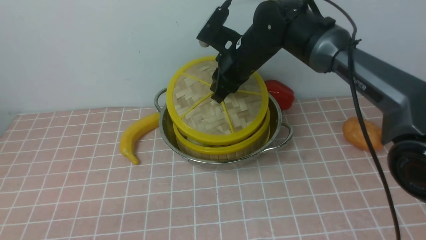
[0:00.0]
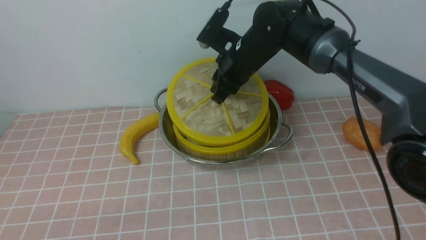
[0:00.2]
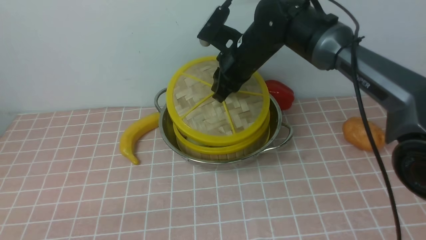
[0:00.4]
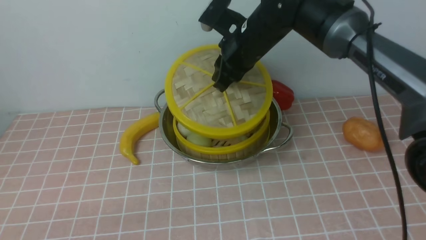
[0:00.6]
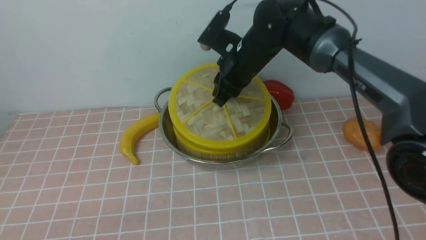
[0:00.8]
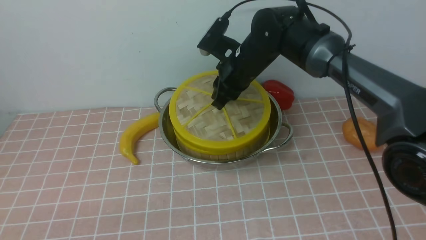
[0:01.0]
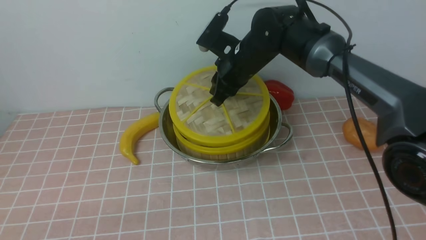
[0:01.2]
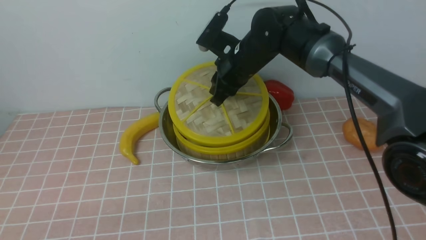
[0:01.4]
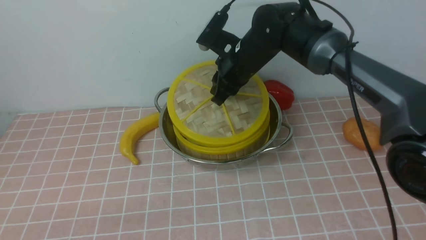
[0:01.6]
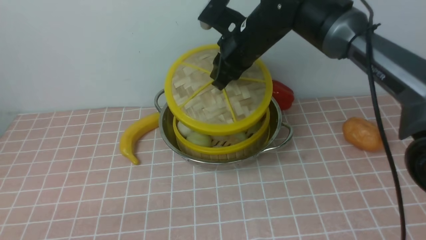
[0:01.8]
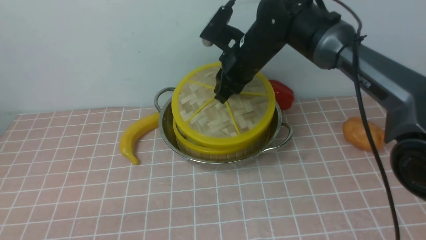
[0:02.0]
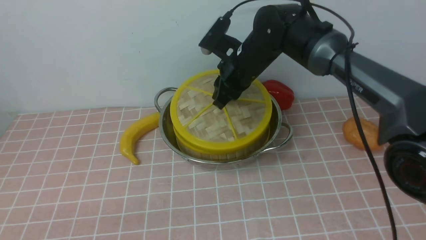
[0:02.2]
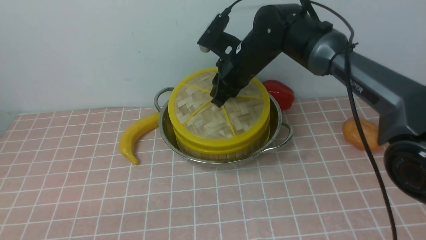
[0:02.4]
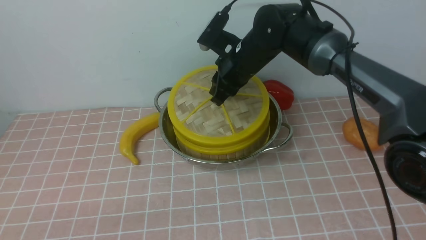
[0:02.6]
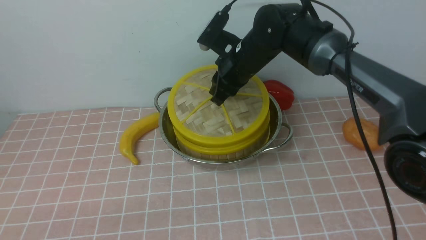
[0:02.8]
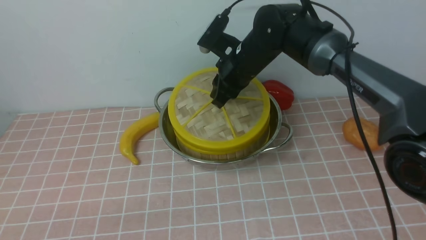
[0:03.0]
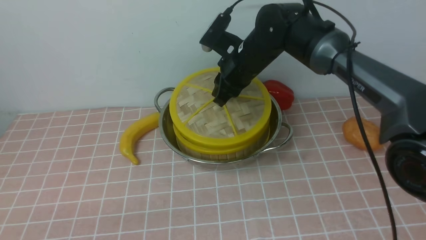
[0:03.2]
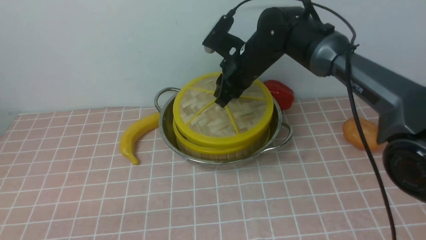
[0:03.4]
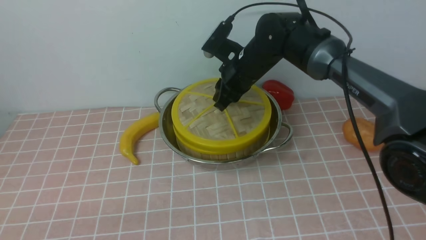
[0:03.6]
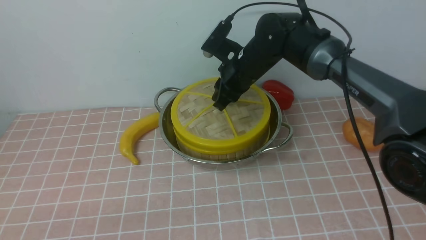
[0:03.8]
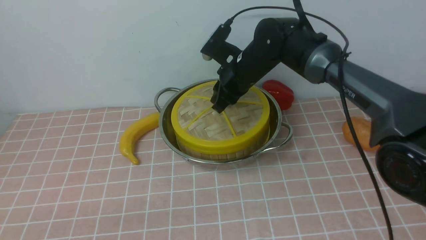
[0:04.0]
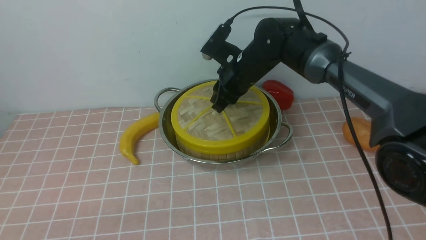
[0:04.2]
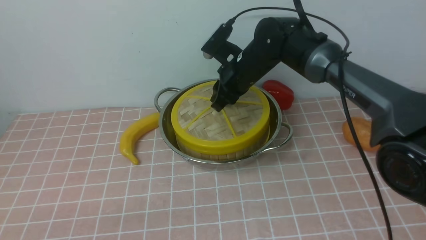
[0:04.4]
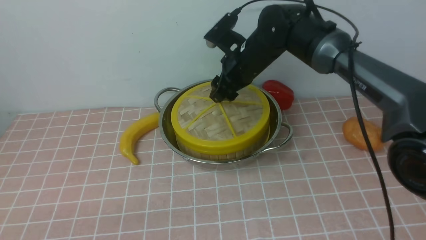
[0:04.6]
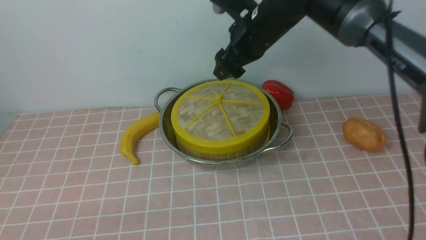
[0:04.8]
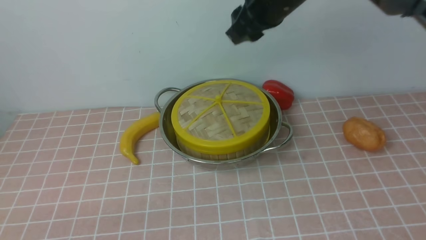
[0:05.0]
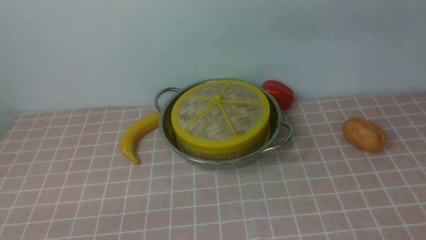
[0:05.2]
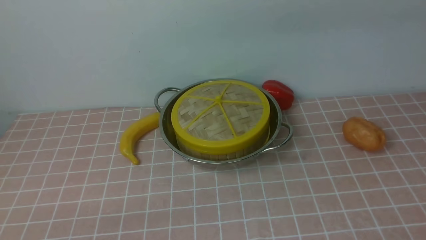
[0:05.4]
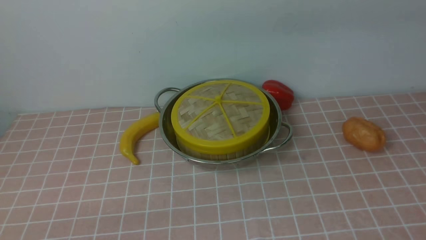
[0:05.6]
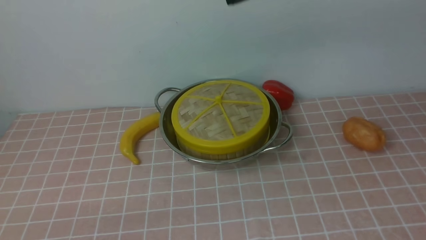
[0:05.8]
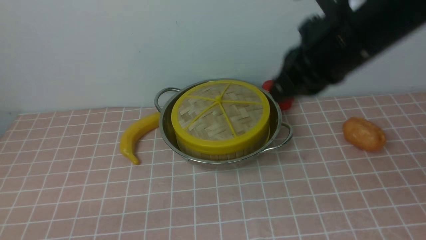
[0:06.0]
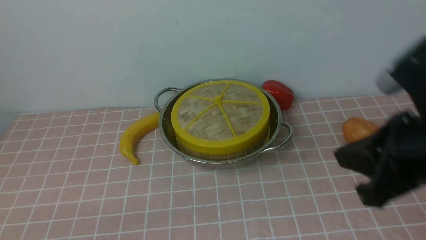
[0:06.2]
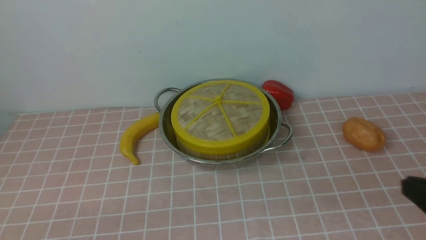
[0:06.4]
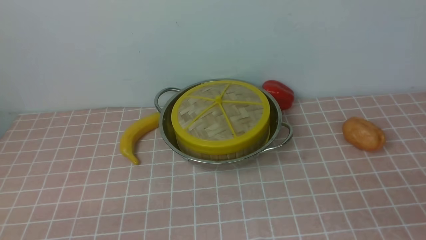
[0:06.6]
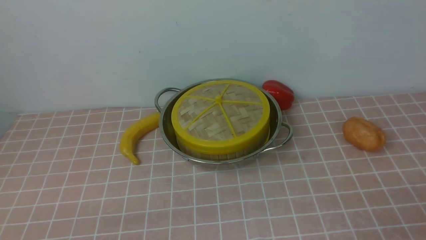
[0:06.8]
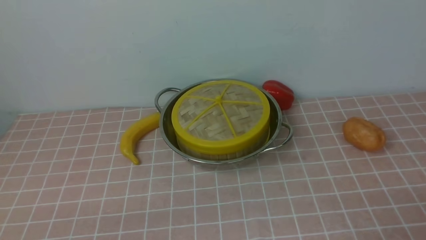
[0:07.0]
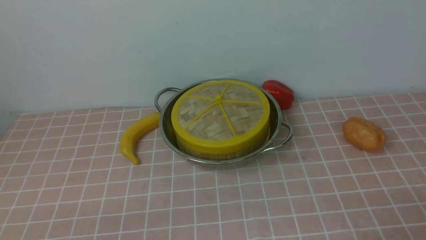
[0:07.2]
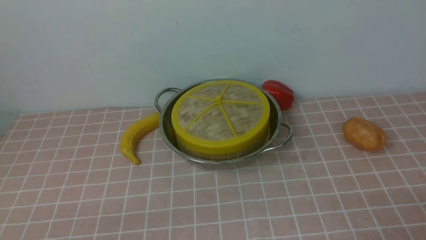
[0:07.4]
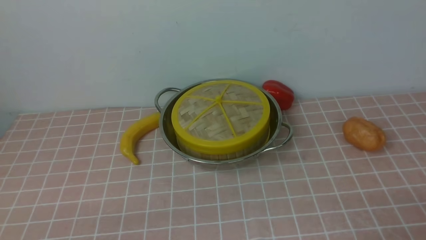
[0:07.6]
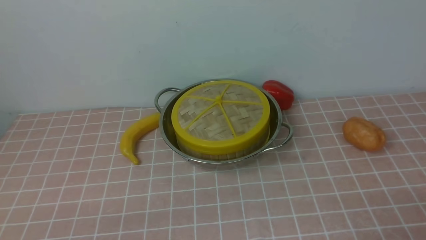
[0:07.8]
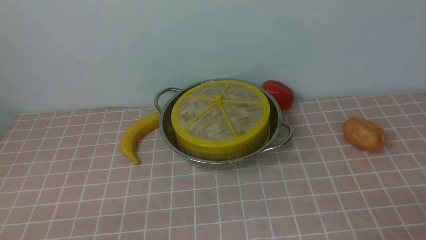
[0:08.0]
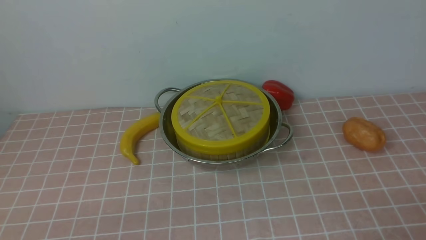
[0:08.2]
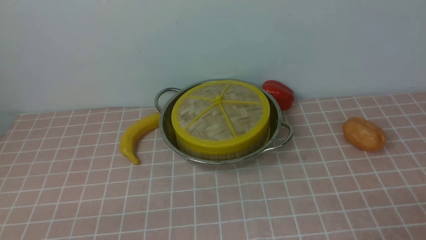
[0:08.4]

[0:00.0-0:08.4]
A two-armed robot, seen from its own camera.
Task of the whole recording: place the steamer in the pot on the pink tablecloth, and put the lid on the steamer.
Step, 0.0 to 4.6 s: use the right arm to place the steamer lid on the steamer.
0.0 to 4.2 s: The grippers make only small movements.
4.2 to 5.6 s: The right gripper is displaced upward and backward by some 25 cm, and closes up.

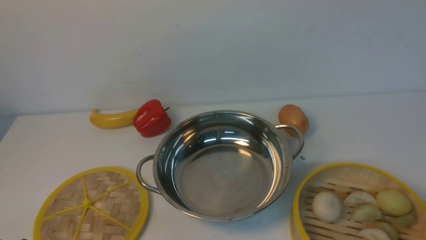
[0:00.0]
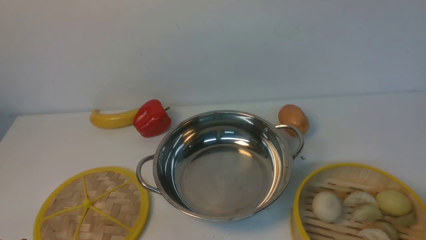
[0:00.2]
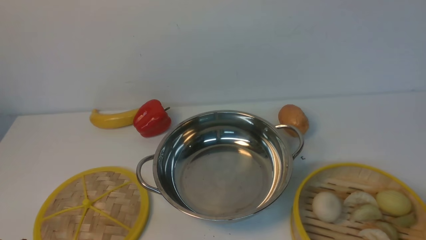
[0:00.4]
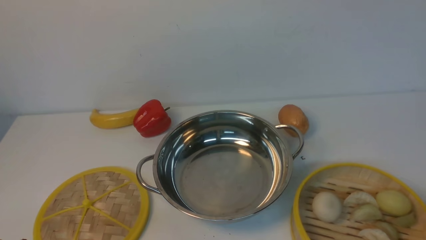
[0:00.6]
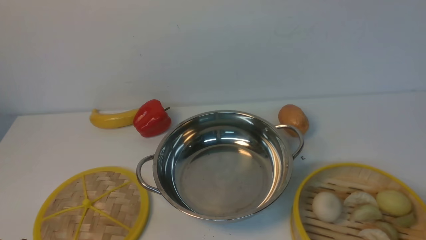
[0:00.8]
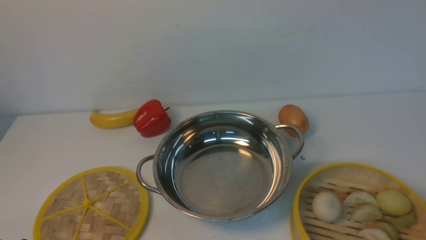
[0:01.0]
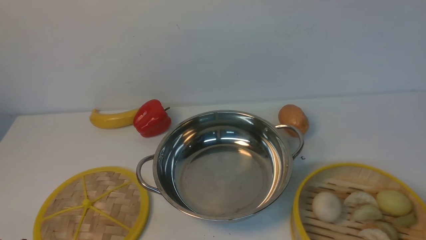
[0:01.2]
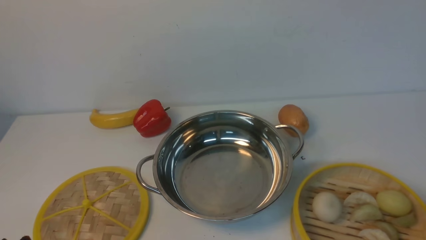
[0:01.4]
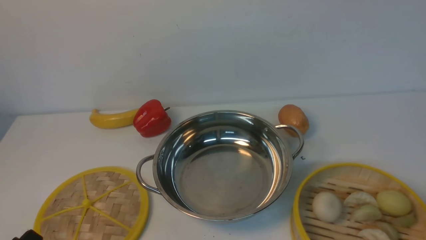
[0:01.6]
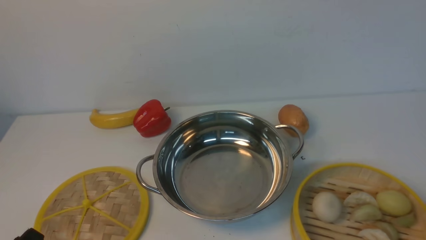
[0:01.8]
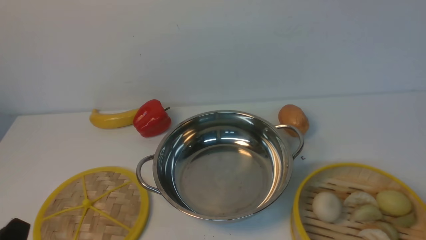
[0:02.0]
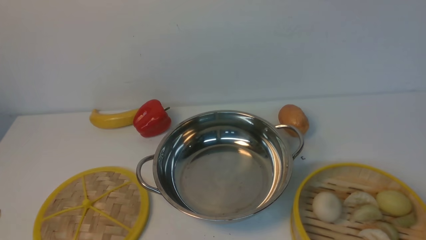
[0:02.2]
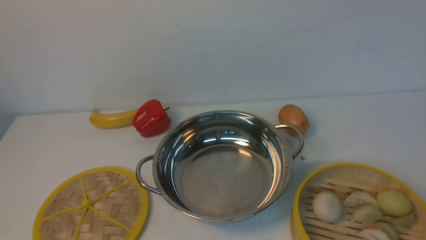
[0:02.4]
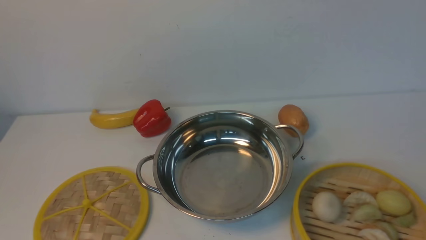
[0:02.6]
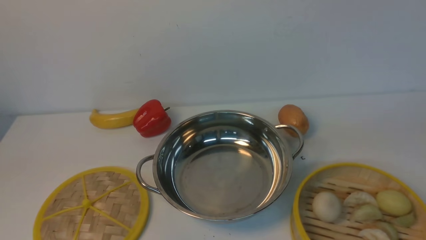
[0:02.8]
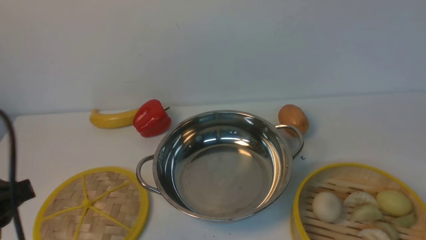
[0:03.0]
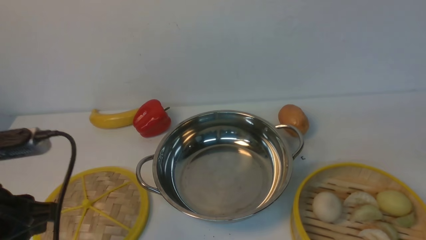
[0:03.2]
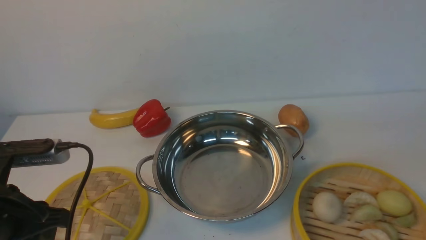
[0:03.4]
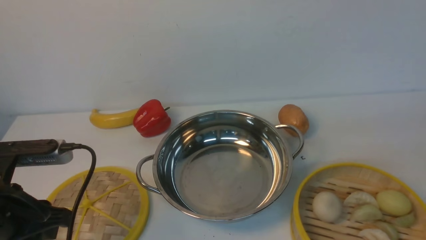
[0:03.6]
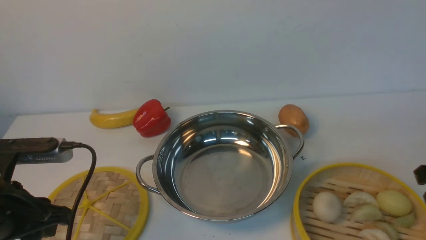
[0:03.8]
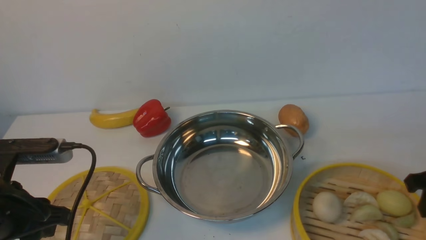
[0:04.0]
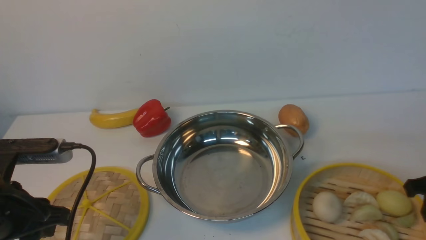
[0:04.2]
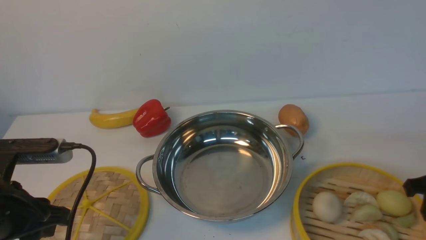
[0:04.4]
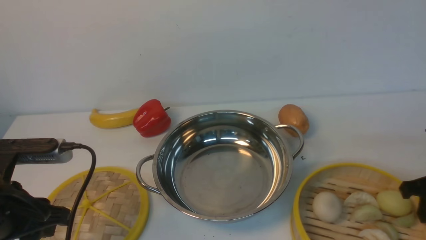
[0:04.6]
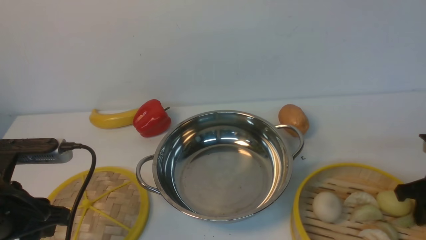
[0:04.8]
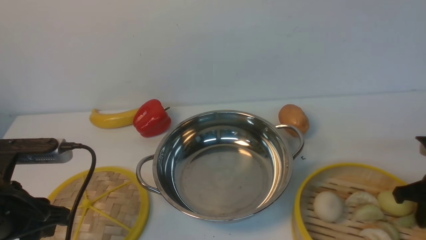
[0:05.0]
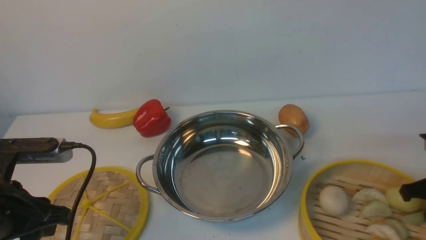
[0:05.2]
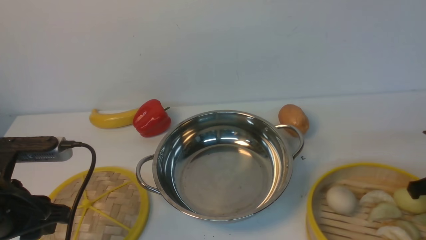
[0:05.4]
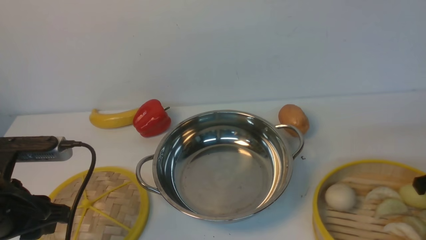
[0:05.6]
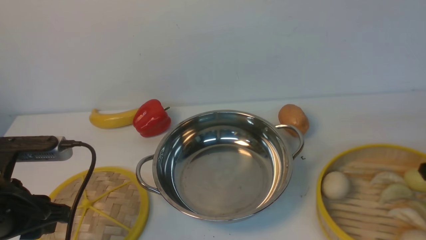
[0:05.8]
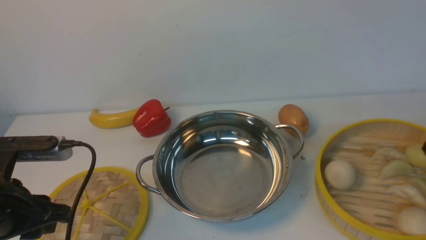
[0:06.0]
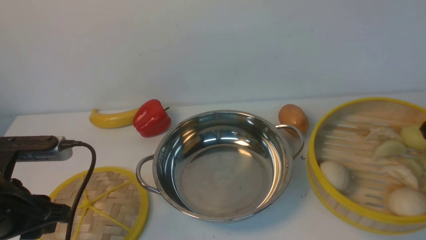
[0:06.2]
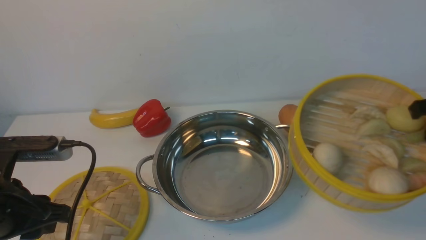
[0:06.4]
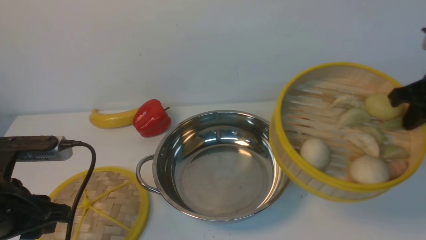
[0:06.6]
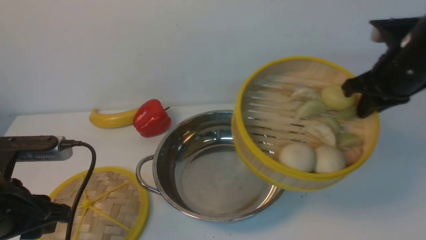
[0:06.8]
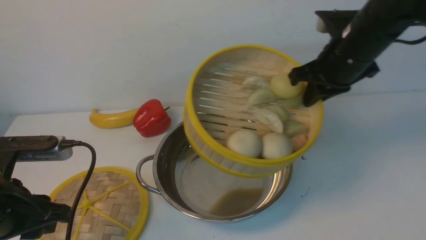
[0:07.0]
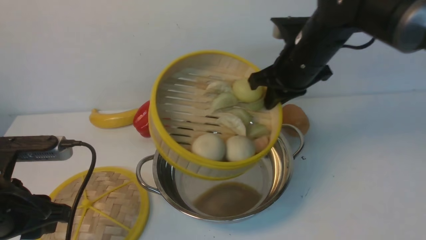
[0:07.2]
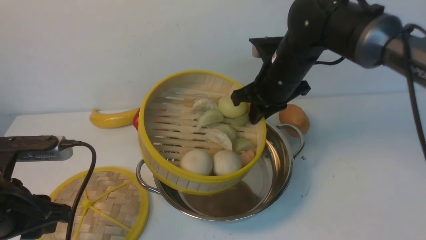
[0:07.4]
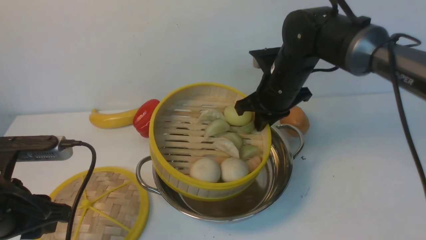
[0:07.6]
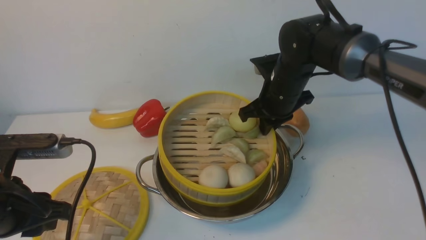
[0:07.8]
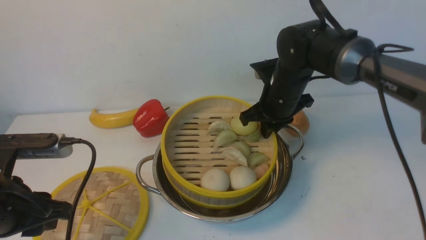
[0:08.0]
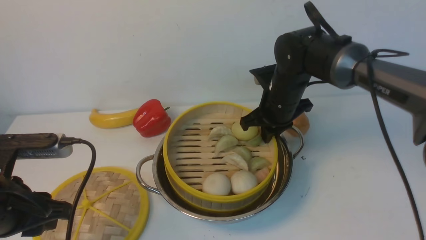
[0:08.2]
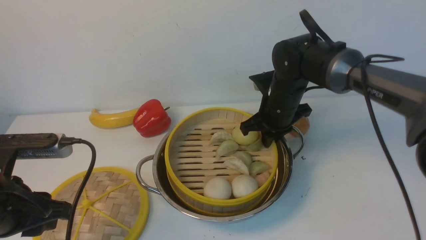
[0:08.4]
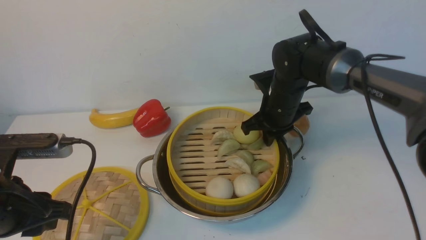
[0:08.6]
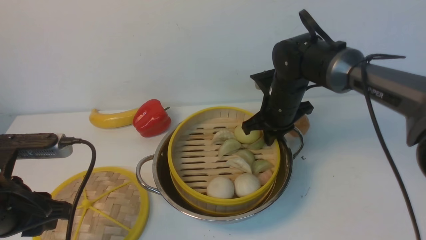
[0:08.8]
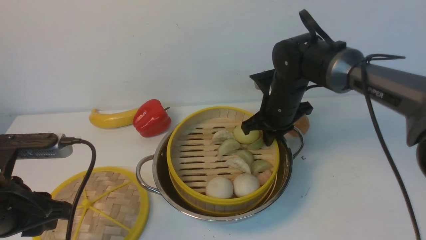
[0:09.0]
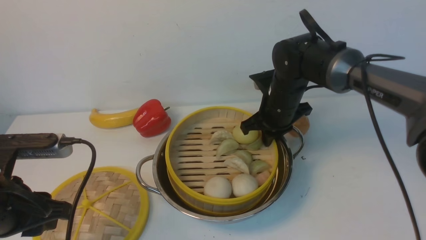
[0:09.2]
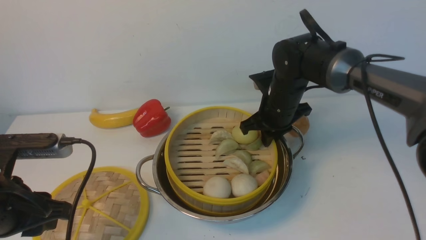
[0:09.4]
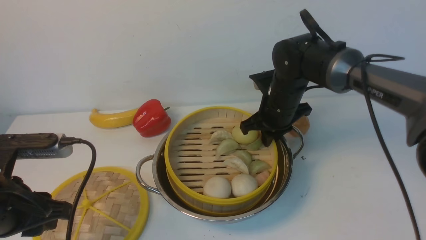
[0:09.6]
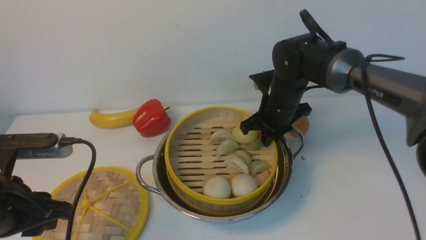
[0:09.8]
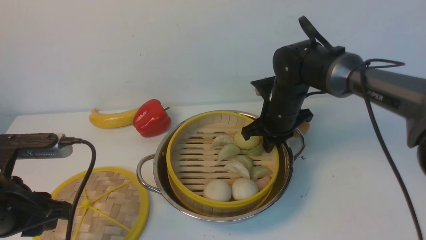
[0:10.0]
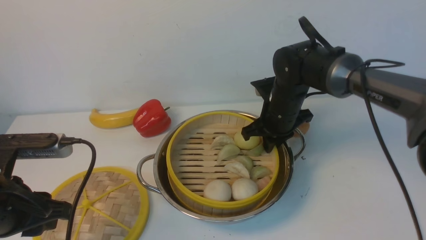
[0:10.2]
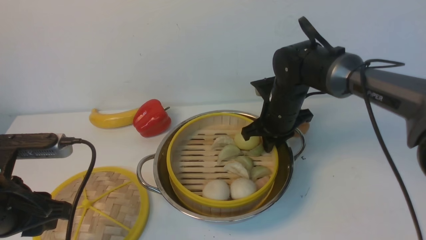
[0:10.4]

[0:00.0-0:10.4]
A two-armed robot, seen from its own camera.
Task of the whole recording: place the steamer in the pot on the white table, and put the lid on the steamer.
Step, 0.0 to 6.2 s: use the right arm to lift the steamer closest to it.
1.4 to 3.0 s: The left gripper moves upward and forward, roughly 15 cm.
3.0 to 4.4 s: The left gripper heads forward, covering about 5 cm.
4.4 to 6.0 s: The right gripper moves upward, roughly 5 cm, and closes up.
6.0 to 7.4 s: The right gripper travels to the left and forward by some 25 cm.
7.4 to 9.0 s: The right gripper moves downward, some 5 cm.
9.0 to 10.4 s: Both grippers stay about where they are.
